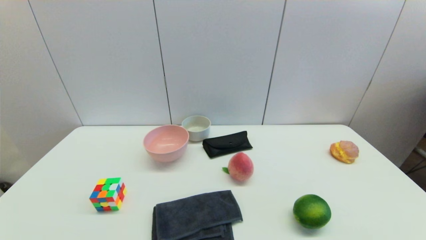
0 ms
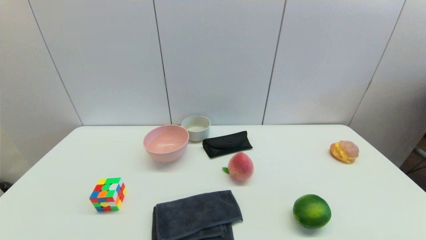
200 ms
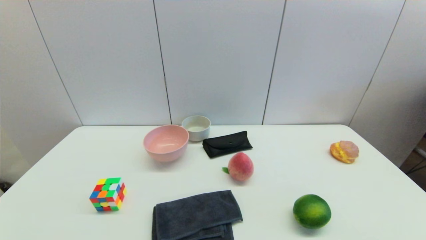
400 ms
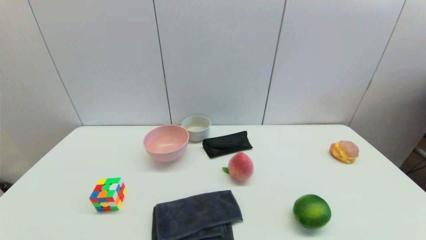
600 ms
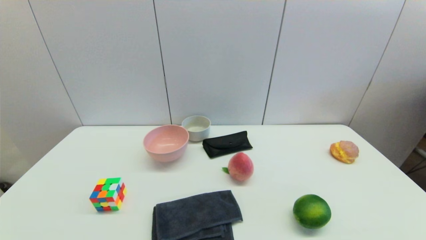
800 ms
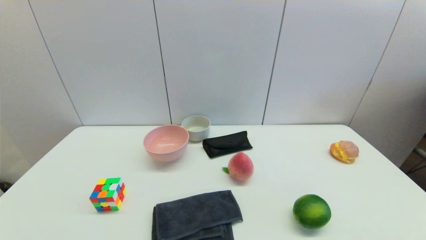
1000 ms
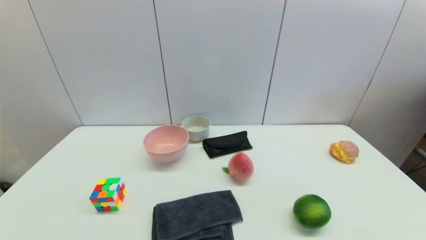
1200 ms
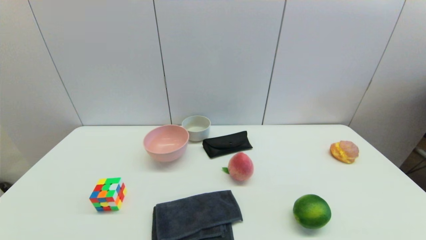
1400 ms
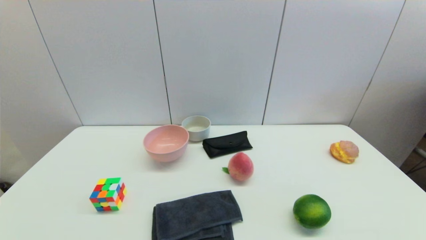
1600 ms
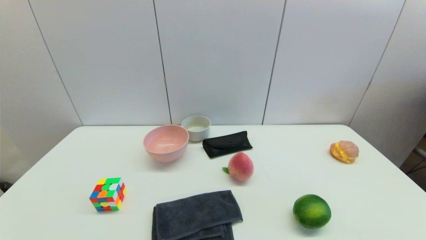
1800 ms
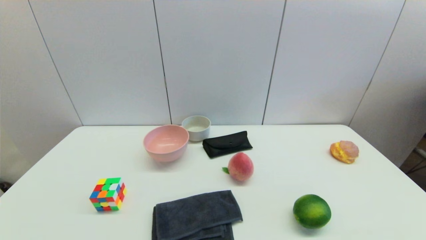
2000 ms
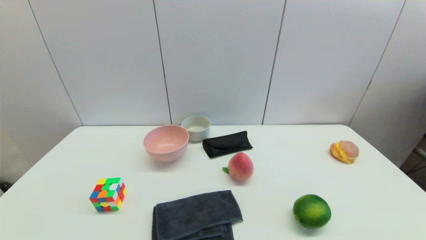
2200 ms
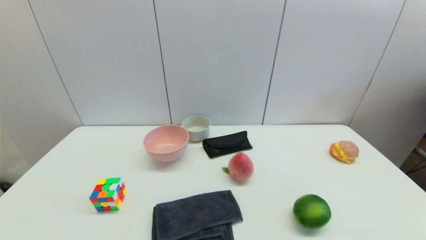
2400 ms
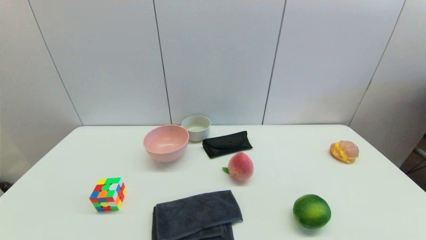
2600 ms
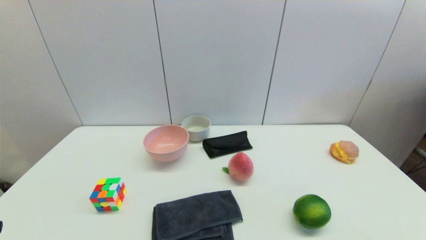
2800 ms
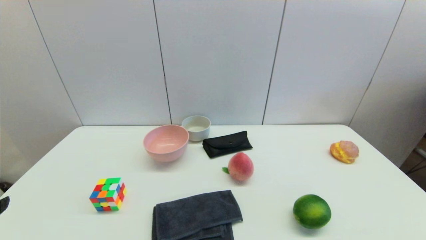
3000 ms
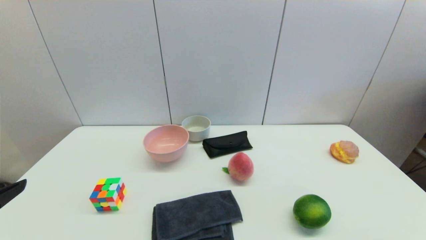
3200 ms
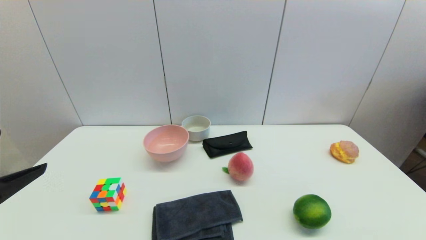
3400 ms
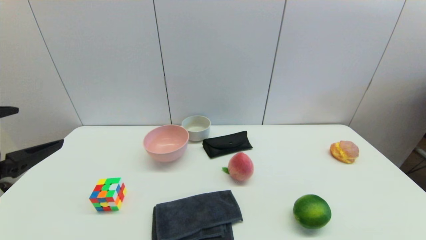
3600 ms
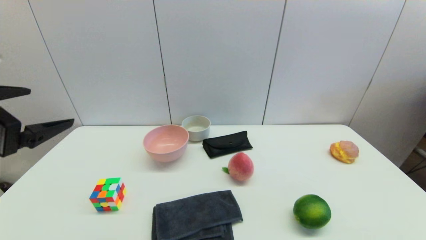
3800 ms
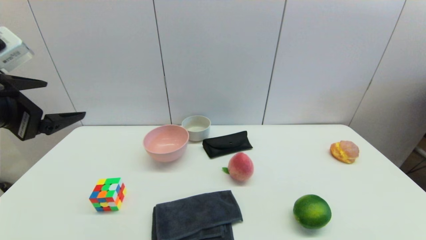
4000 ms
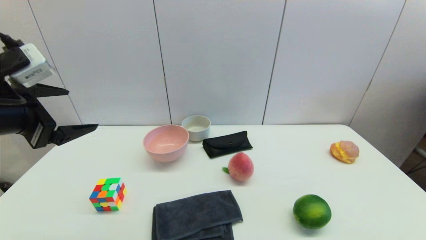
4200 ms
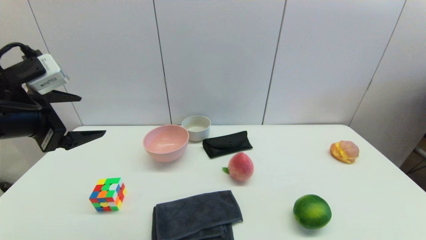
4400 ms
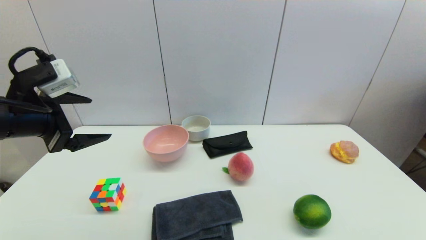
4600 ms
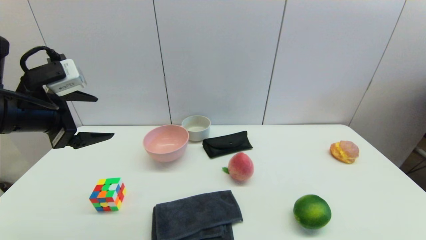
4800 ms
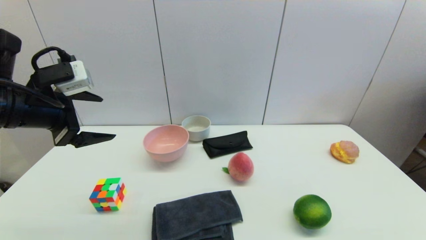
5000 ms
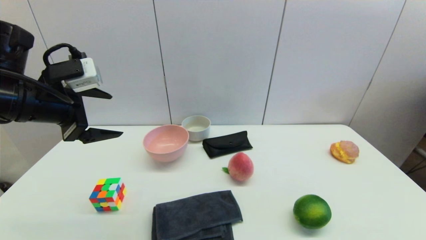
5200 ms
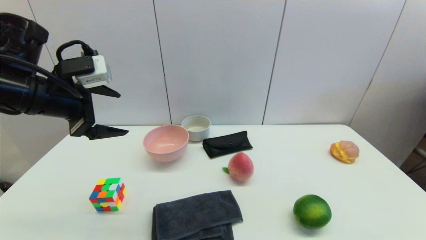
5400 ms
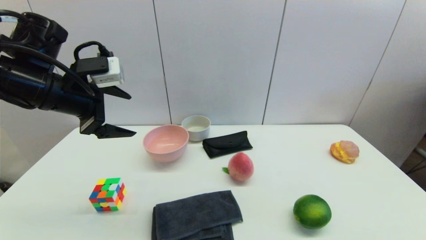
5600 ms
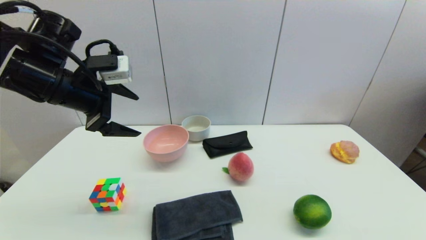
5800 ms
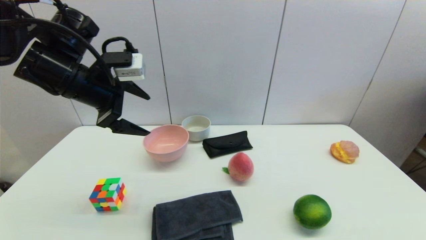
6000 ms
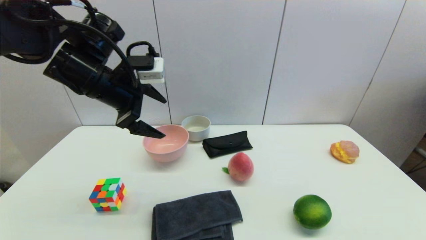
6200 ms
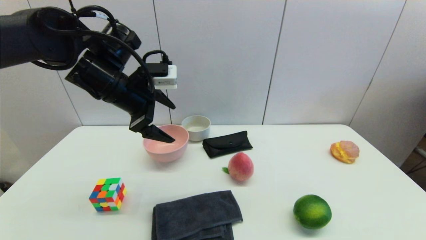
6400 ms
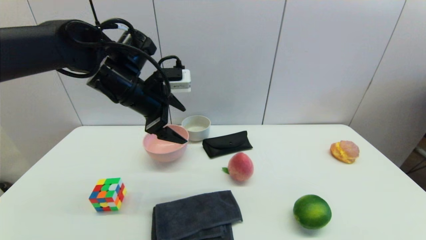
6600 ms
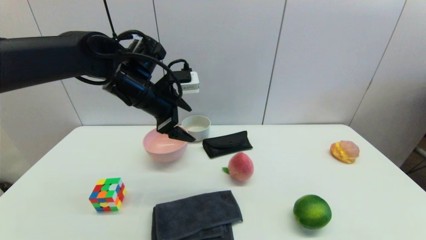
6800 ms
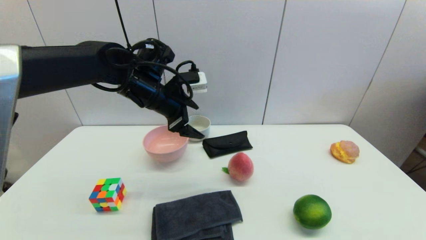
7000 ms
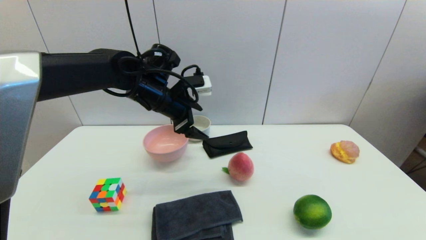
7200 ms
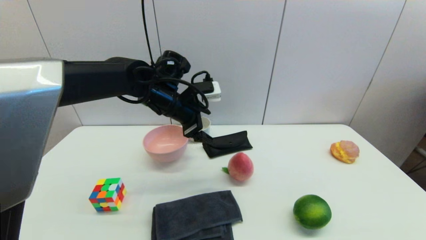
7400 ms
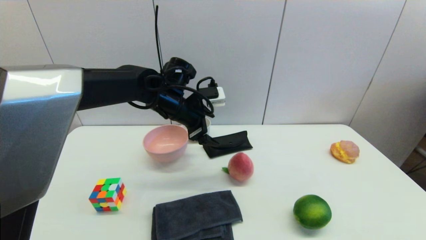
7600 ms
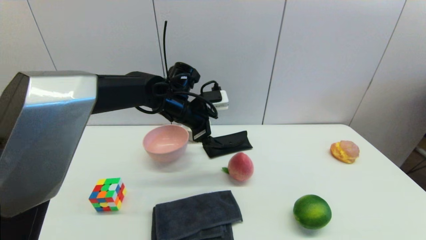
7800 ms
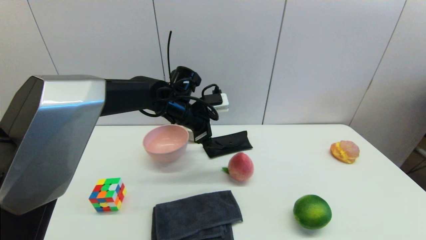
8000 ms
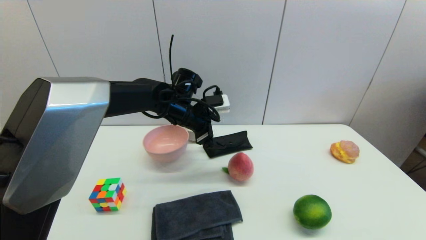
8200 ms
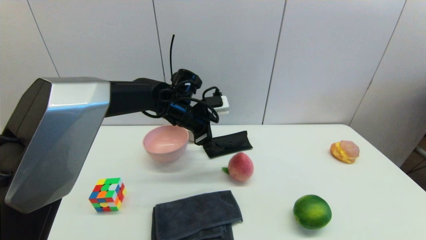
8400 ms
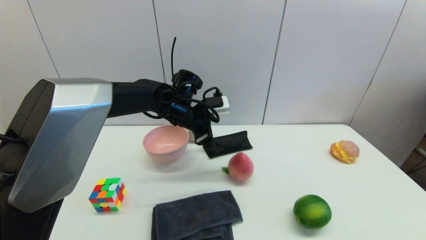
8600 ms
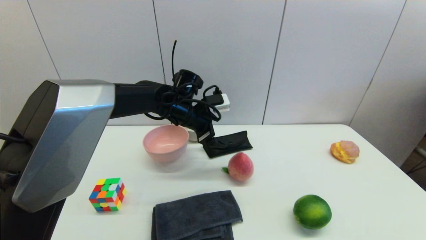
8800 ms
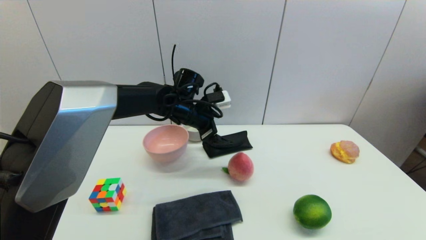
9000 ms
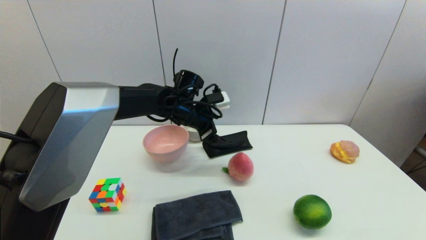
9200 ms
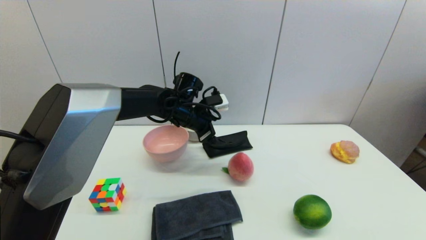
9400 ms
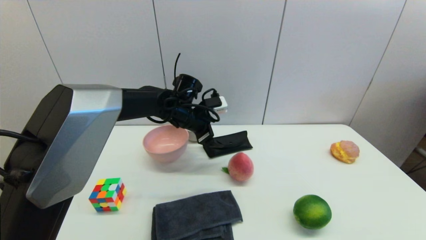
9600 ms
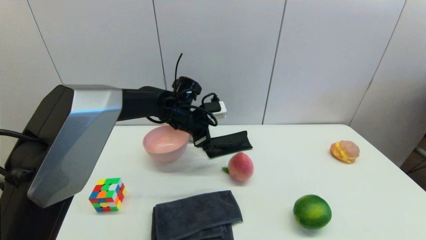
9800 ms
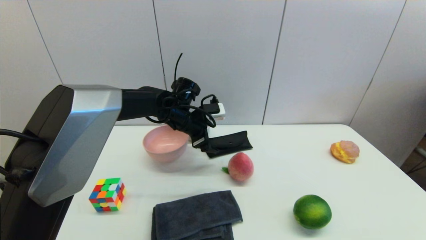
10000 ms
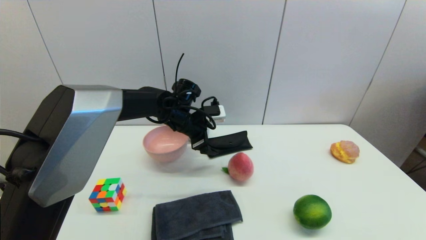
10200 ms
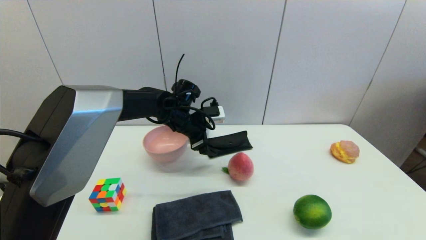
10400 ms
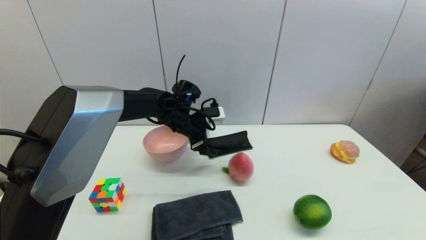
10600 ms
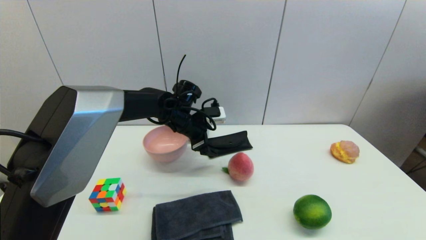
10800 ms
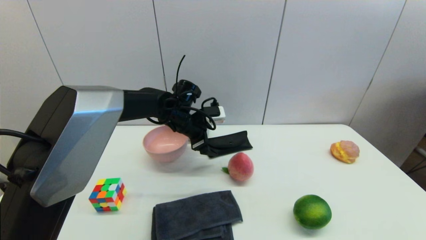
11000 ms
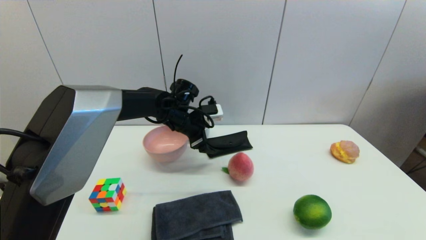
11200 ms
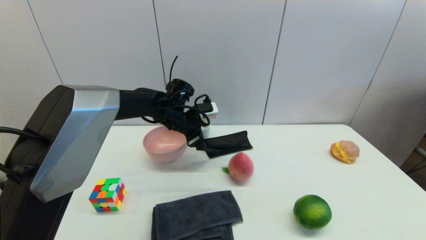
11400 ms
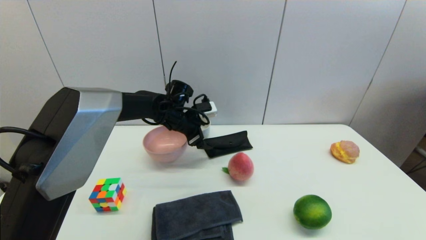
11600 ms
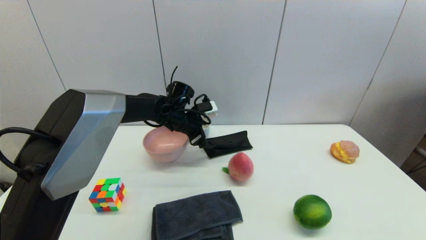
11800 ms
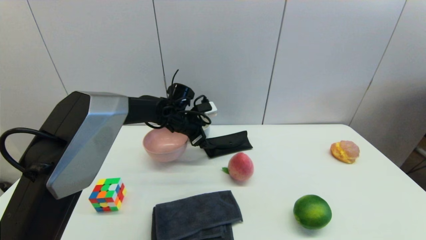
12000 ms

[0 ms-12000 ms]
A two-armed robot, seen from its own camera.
3000 ms to 4400 ms: The left gripper goes roughly 20 cm forward.
4400 ms to 6000 ms: The left gripper travels forward and to the right by approximately 10 cm.
6000 ms to 7600 ms: The left gripper travels to the right, downward and forward by about 20 cm.
7600 ms to 9000 ms: There are only small adjustments of the grippers.
9000 ms to 10400 ms: There are only small adjustments of the grippers.
10400 ms to 12000 ms: The grippers stay close to where they were, moving slightly.

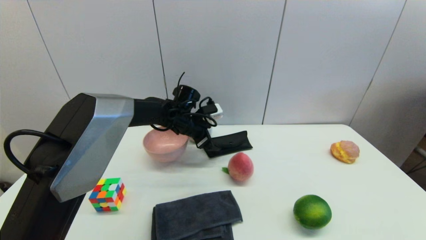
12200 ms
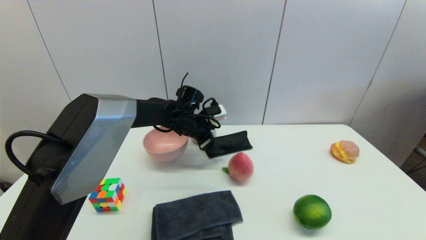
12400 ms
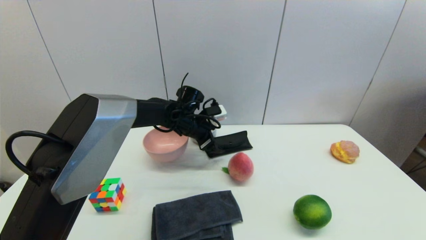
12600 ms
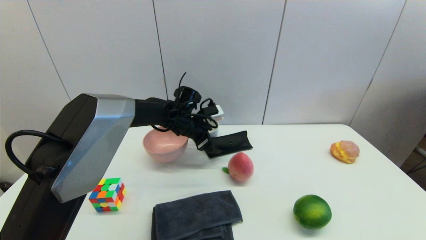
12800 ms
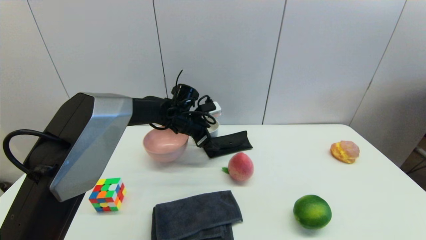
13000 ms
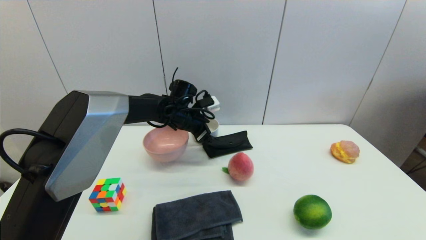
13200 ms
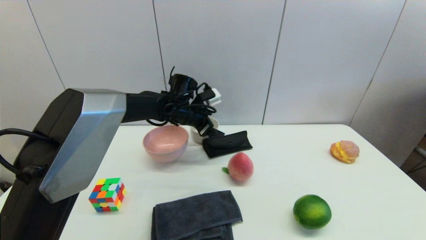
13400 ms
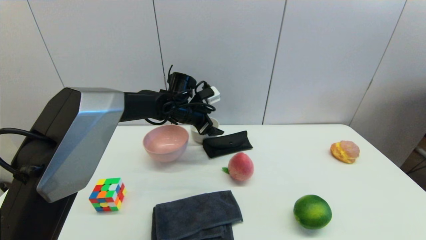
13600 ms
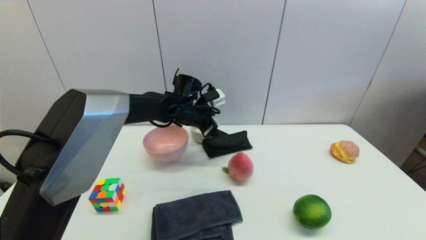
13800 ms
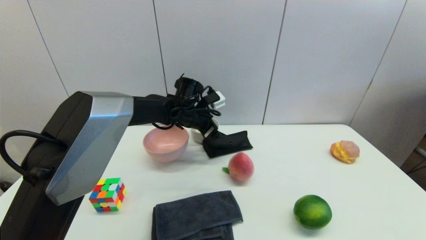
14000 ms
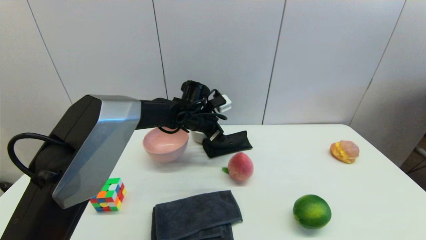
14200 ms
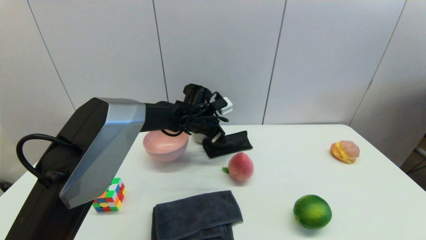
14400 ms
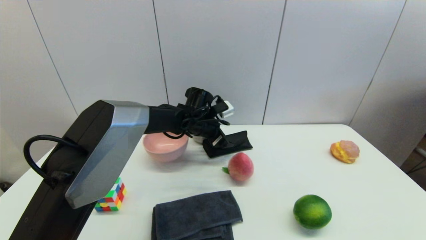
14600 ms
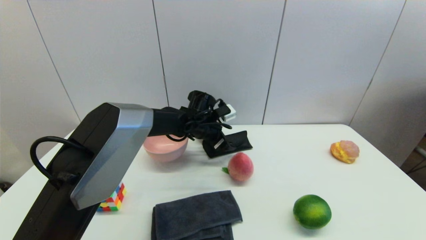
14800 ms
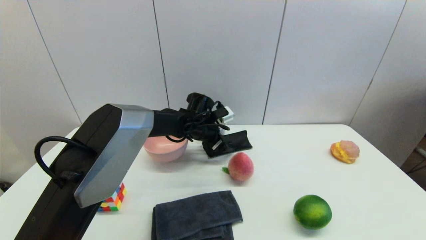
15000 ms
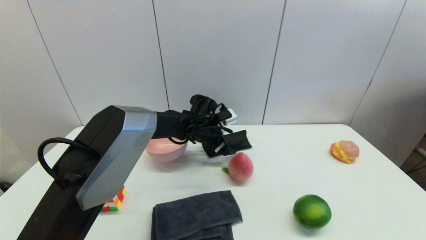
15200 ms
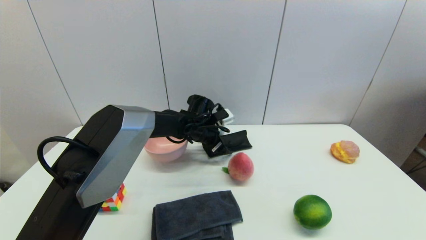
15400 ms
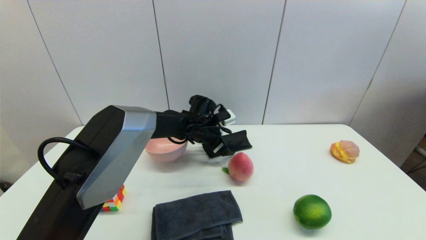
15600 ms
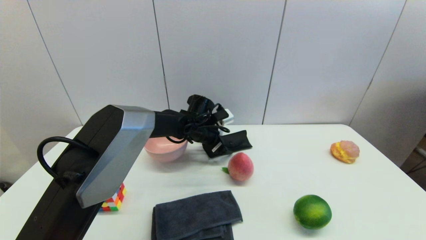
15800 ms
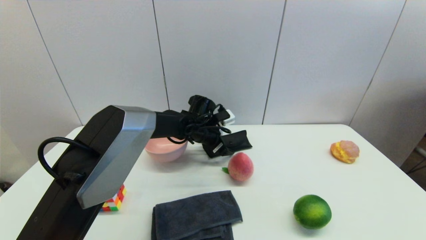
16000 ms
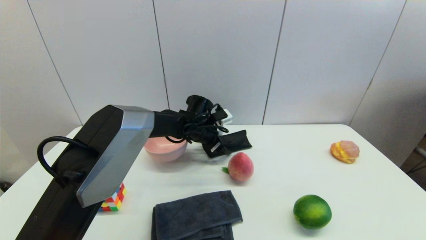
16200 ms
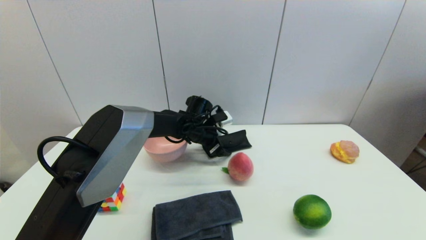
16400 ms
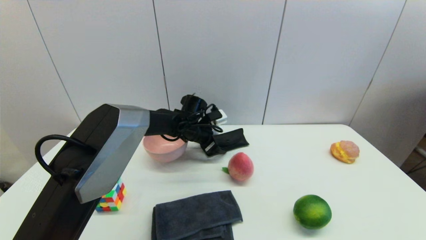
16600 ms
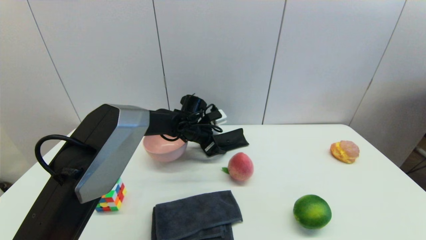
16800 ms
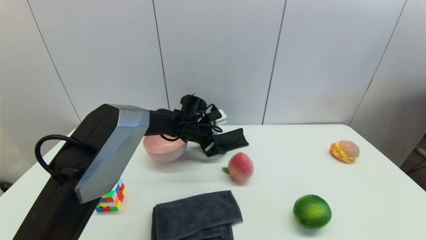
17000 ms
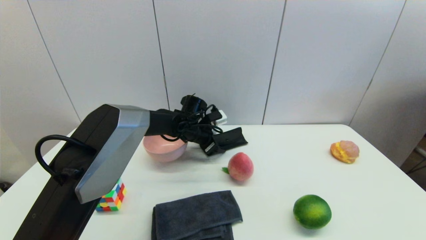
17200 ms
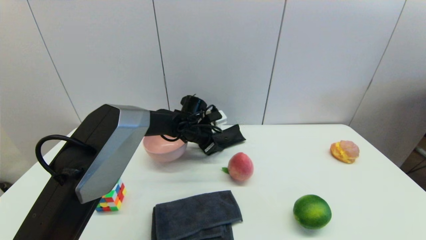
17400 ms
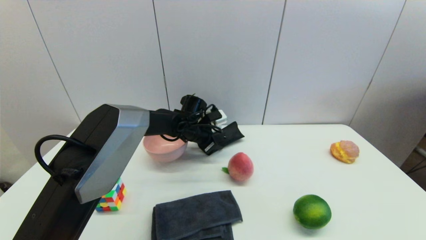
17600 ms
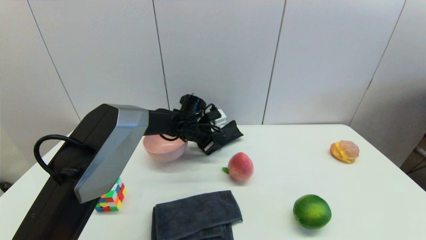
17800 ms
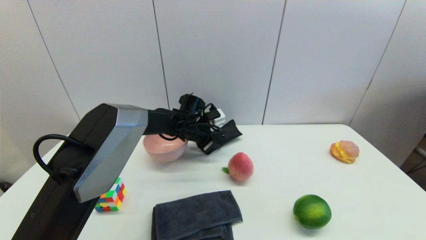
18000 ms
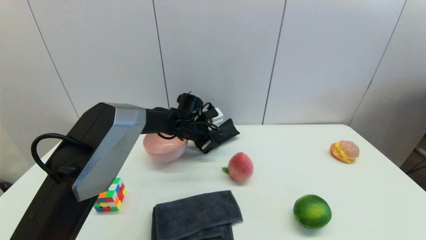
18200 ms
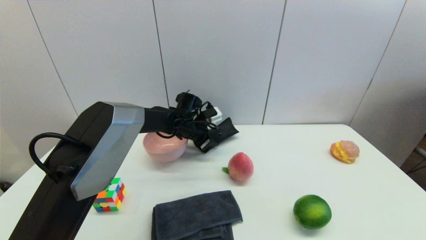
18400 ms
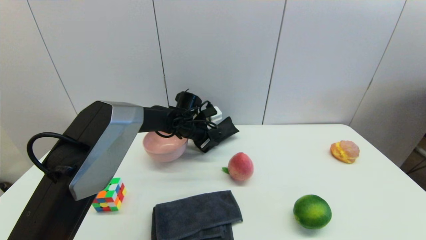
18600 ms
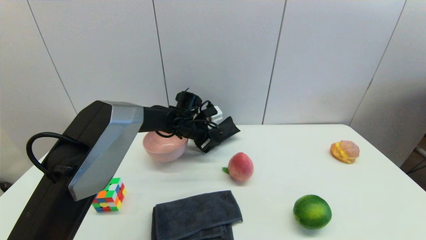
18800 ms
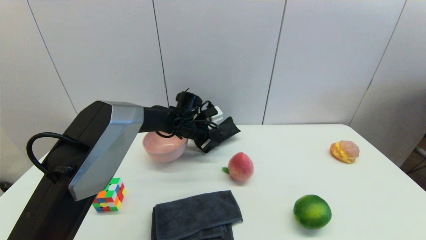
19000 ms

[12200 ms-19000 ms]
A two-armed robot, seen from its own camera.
12200 ms to 13600 ms: The grippers stay close to where they were, moving slightly.
13600 ms to 15000 ms: The left gripper travels downward by some 5 cm.
15000 ms to 16200 ms: Neither gripper changes place.
16200 ms to 17600 ms: The left gripper closes.
17600 ms to 19000 ms: The grippers make only small movements.
